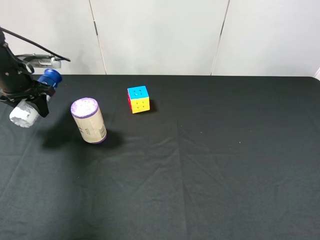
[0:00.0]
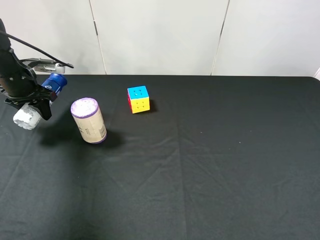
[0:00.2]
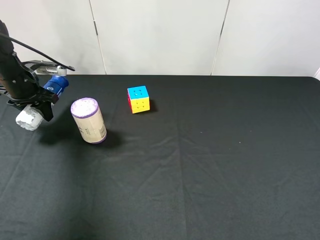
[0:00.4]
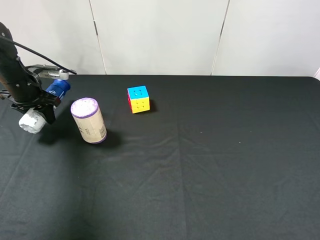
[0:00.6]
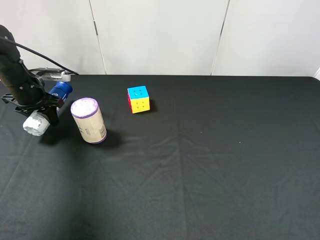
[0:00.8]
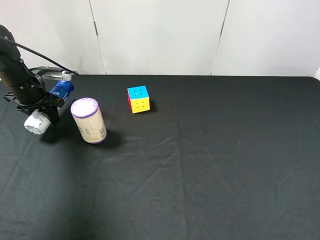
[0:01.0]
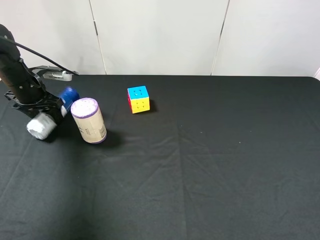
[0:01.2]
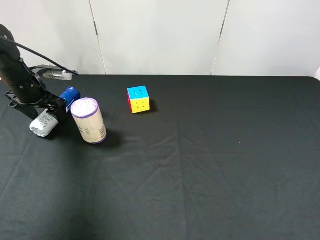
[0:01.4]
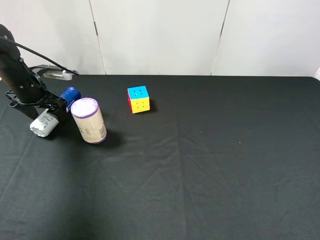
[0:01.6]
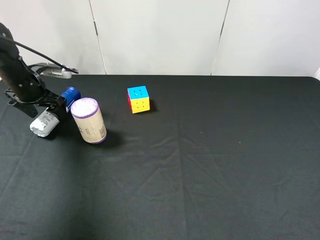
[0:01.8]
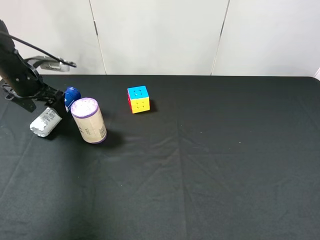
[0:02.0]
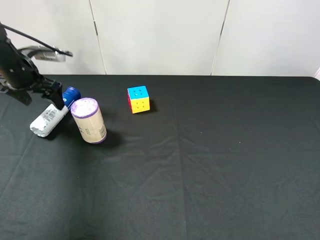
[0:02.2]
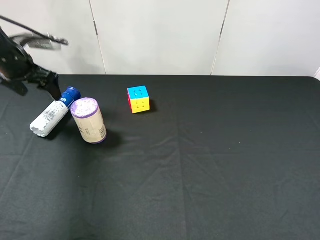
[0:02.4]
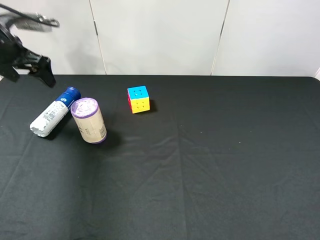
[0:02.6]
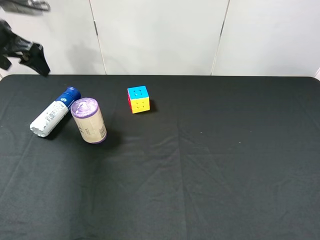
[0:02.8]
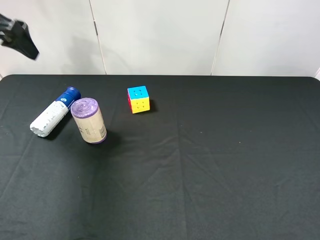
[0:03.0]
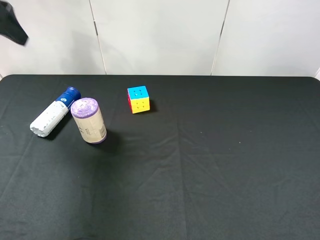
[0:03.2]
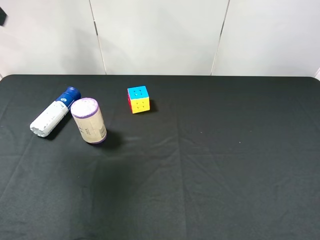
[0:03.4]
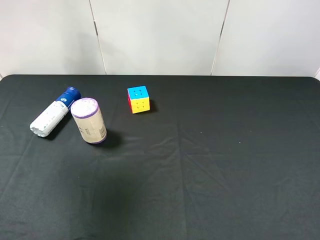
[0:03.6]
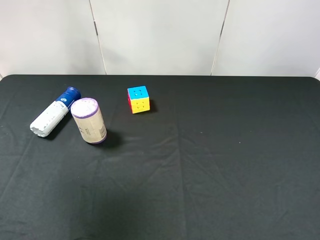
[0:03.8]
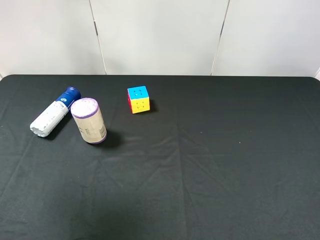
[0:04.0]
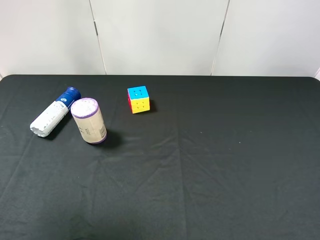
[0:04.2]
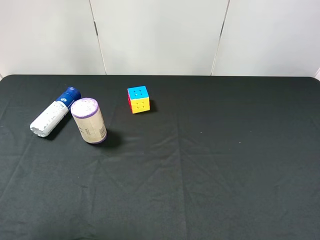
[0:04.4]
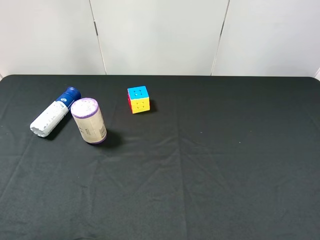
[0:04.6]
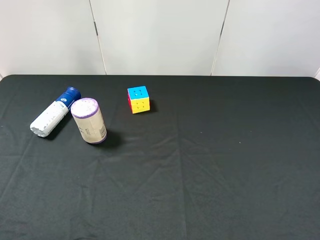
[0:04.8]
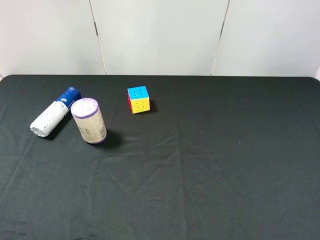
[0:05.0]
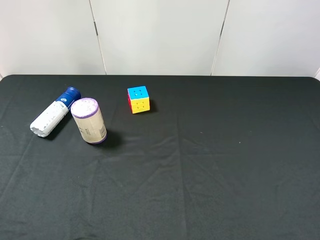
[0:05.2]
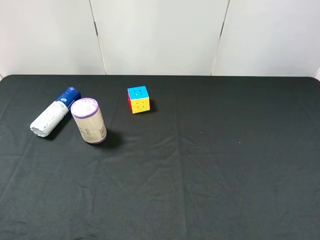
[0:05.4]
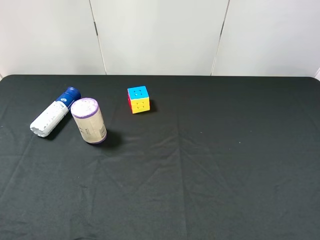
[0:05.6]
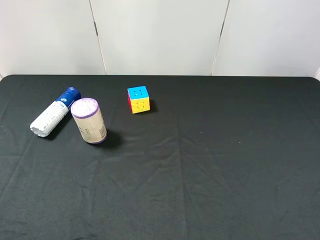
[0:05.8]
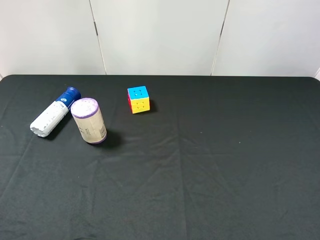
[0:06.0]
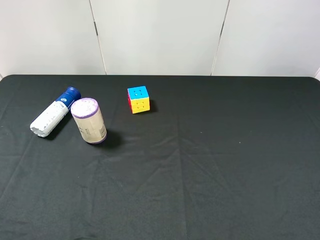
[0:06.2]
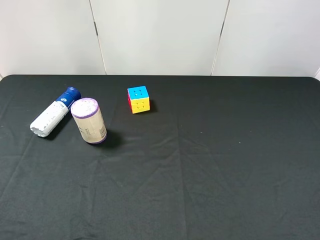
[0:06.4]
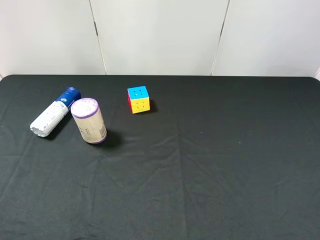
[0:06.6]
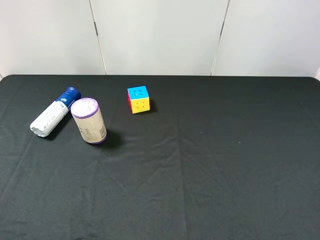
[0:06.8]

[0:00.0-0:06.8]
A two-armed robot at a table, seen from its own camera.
Task of the whole recording: use the right gripper to pick up the item and transfer it from the right gripper to the left gripper.
0:00.0 to 0:01.4: The left gripper opens its fingers.
0:01.4 to 0:02.8: The left gripper shifts some 15 cm upward.
0:02.8 to 0:04.0: The left gripper shifts some 25 cm backward and upward.
0:04.0 to 0:05.4: The left gripper heads backward and downward, covering about 20 cm.
0:05.4 to 0:06.8: The two grippers keep their place.

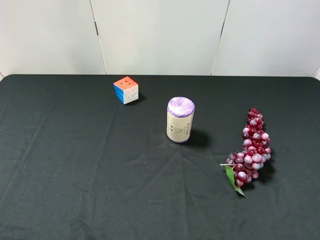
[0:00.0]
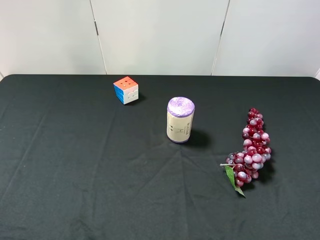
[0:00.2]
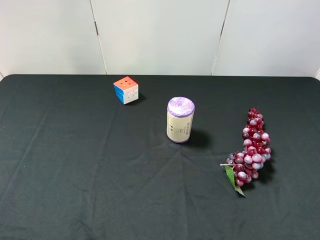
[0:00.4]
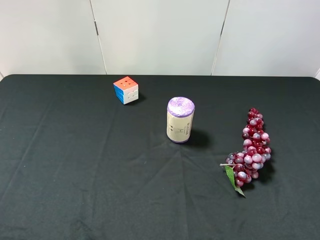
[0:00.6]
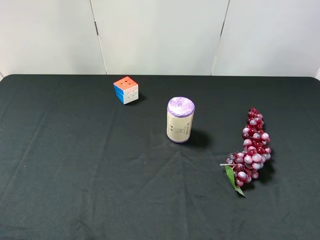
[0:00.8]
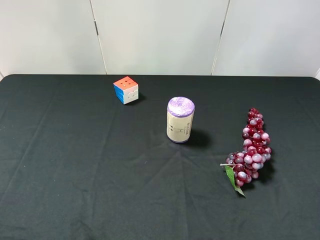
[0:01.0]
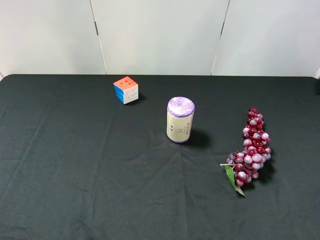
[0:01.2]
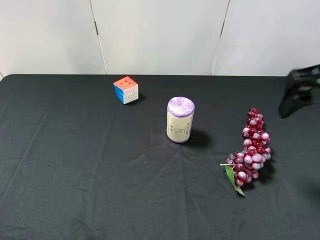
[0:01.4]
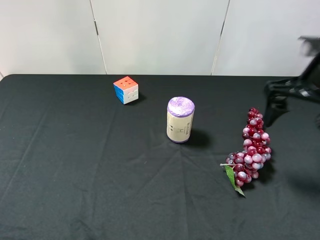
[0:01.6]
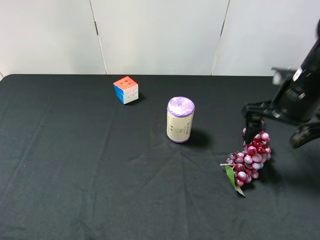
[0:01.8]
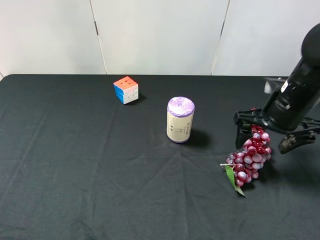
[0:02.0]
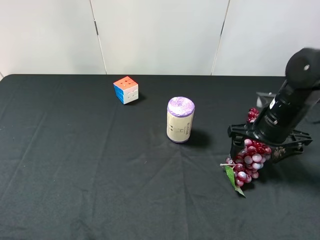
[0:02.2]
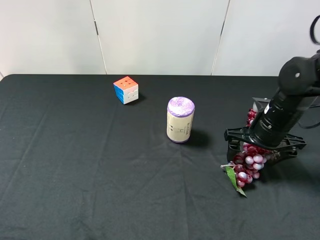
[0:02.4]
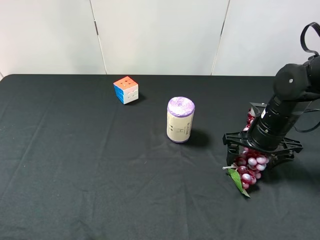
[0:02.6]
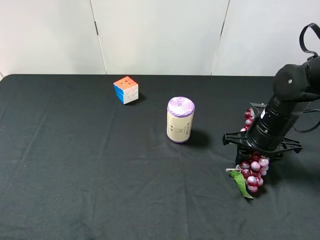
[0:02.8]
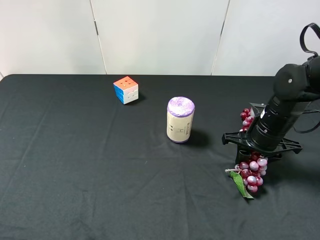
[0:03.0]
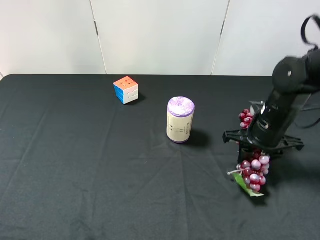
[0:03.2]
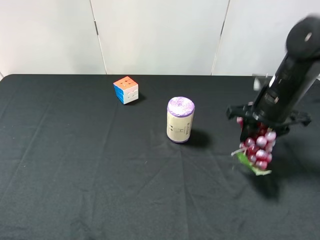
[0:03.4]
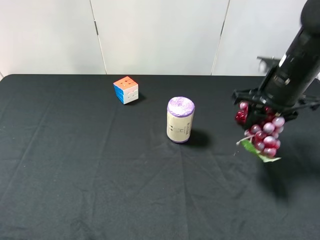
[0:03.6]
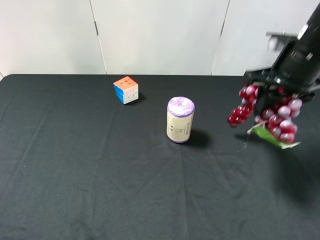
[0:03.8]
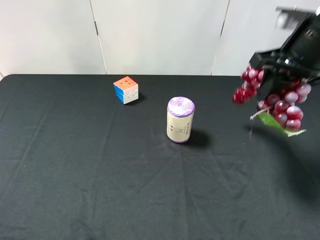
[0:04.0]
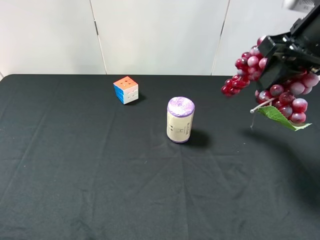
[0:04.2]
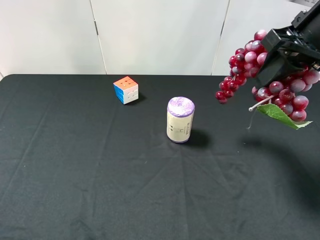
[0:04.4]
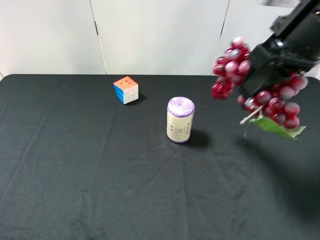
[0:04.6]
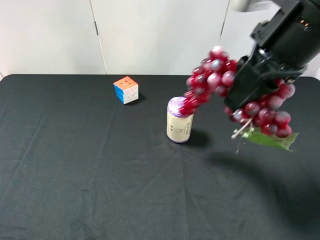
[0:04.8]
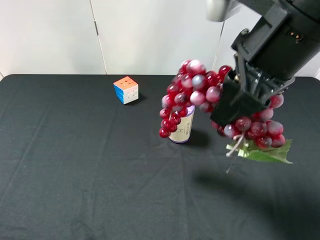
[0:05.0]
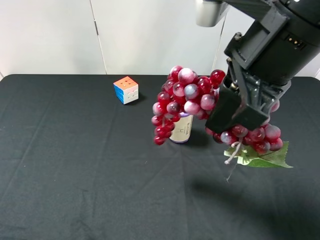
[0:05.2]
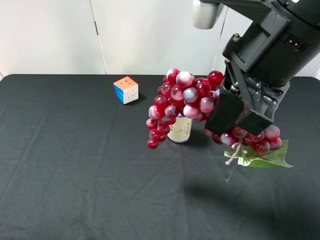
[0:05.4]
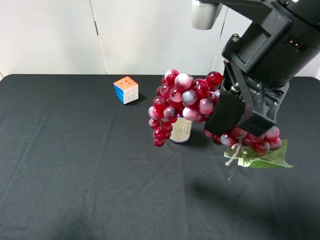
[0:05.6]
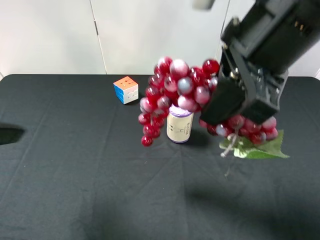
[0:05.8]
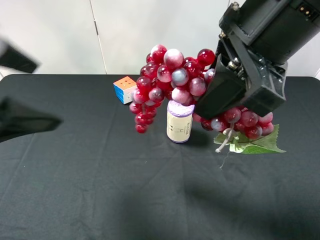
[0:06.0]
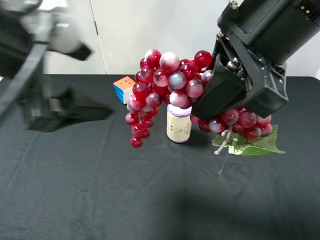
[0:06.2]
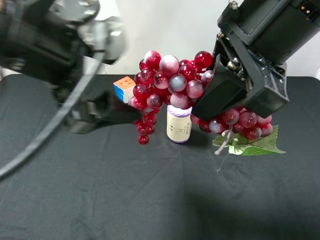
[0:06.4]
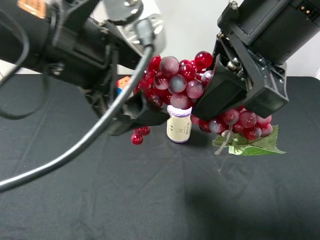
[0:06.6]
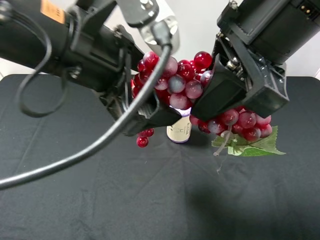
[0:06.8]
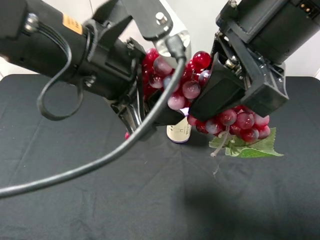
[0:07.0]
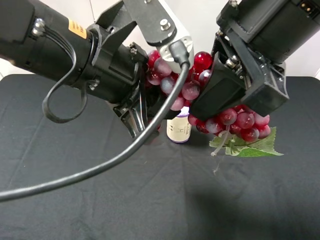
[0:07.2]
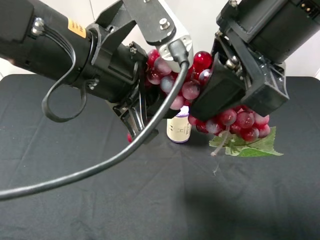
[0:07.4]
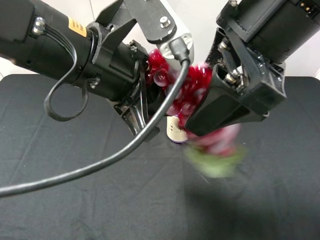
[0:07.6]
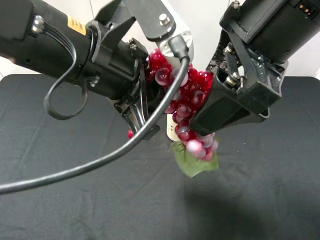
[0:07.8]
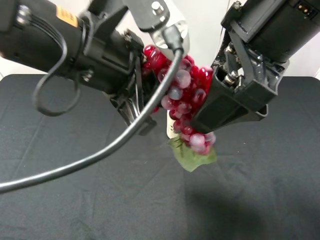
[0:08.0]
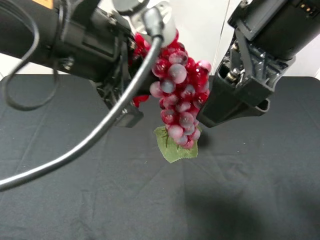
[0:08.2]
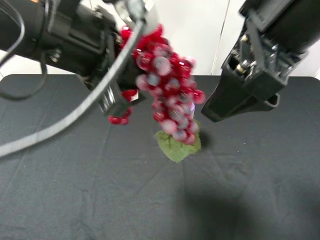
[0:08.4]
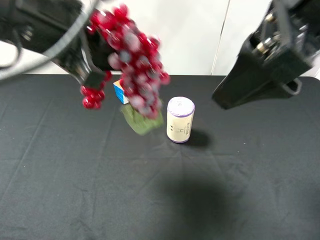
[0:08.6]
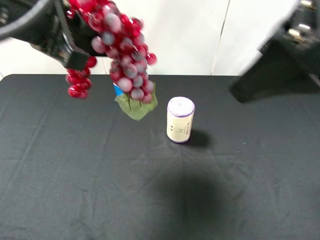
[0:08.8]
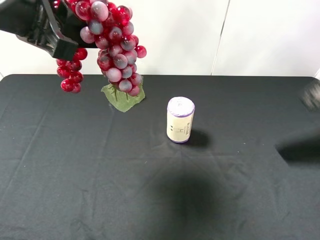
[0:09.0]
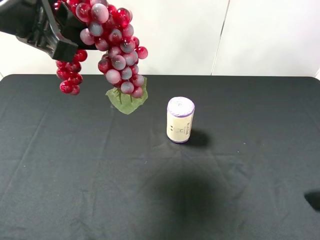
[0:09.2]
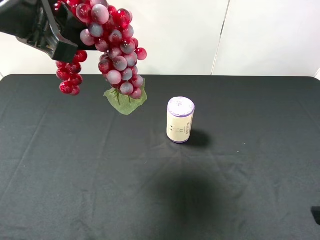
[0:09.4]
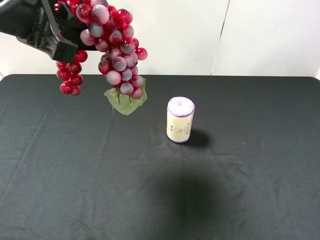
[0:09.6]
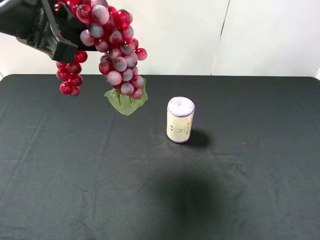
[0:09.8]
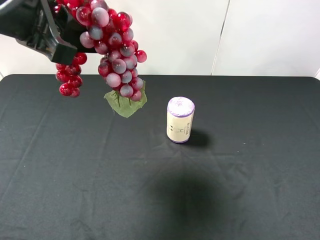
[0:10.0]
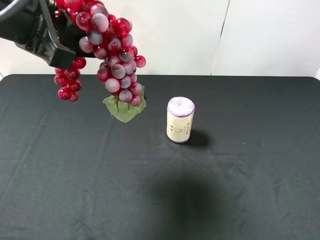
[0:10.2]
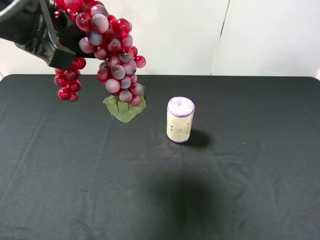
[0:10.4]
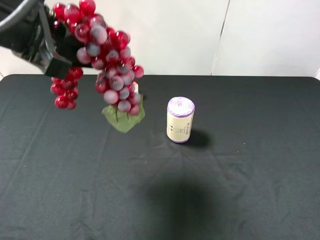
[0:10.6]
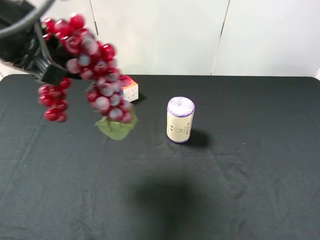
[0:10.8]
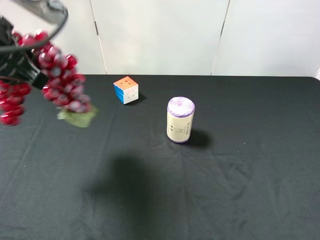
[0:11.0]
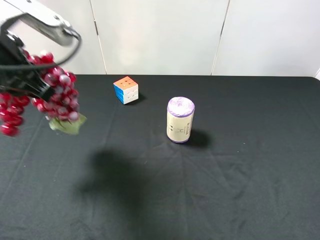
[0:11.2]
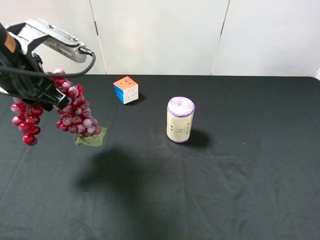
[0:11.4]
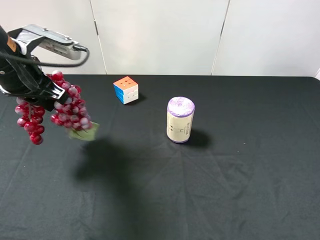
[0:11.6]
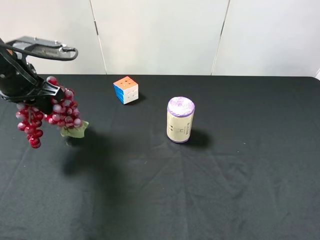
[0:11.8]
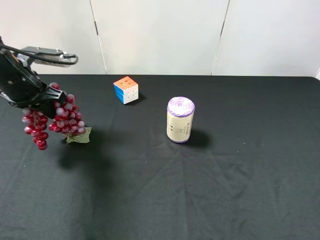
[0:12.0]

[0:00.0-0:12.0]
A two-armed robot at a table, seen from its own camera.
Task of the whole recording: use the right gripper to pick up the item and transfer it from the right gripper to the left gripper.
Step, 0:00.0 to 0:03.0: Use the right gripper to grab the grape on the right side of the table.
Step, 0:03.2 to 0:08.4: Pass the grape to the left gripper.
0:00.0 to 0:01.6: The right gripper moves forward, about 25 cm.
0:01.6 to 0:03.0: The right gripper shifts about 15 cm downward, and closes.
0:03.0 to 0:04.4: The right gripper is displaced upward by roughly 20 cm.
0:04.4 to 0:06.0: The left gripper heads forward and to the right, covering roughly 20 cm. Meanwhile the right gripper shifts about 15 cm to the left and backward.
0:06.0 to 0:07.6: The left gripper is displaced to the right by approximately 10 cm, and closes, while the right gripper opens up.
0:07.6 to 0:09.0: The left gripper is displaced to the left and upward by some 10 cm. Meanwhile the right gripper heads to the right and backward, covering roughly 15 cm.
0:09.0 to 0:10.4: The right gripper is displaced to the right, backward and downward by roughly 15 cm.
0:10.4 to 0:12.0: The left gripper goes roughly 20 cm downward, forward and to the left.

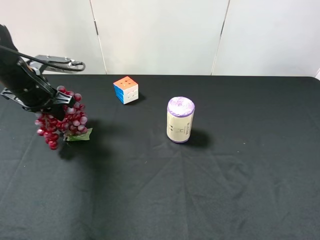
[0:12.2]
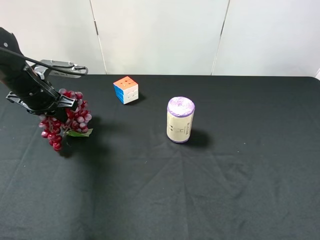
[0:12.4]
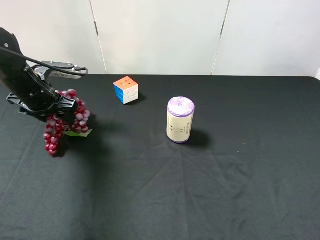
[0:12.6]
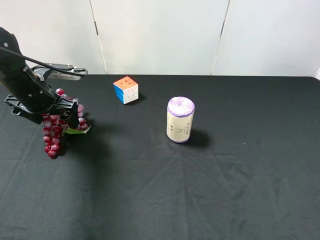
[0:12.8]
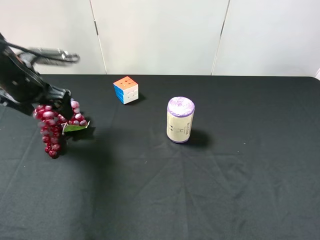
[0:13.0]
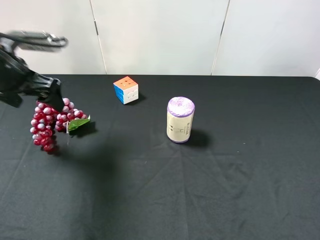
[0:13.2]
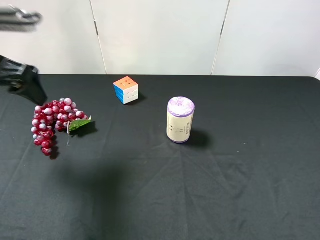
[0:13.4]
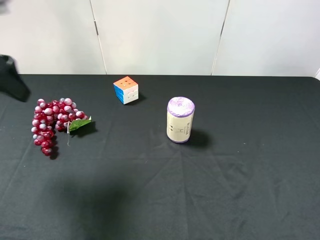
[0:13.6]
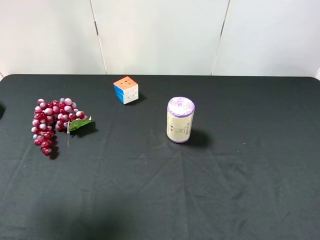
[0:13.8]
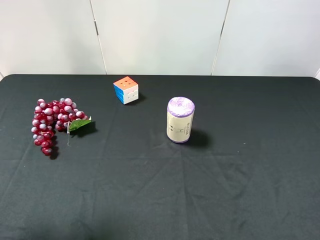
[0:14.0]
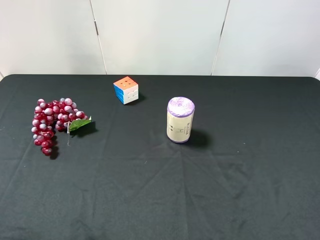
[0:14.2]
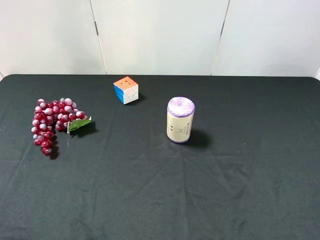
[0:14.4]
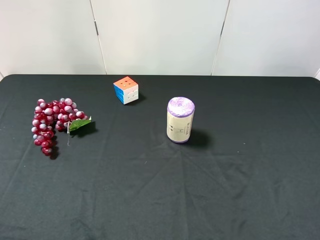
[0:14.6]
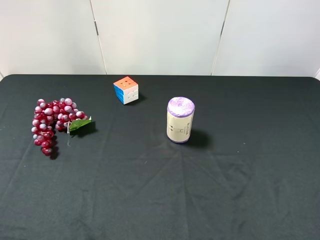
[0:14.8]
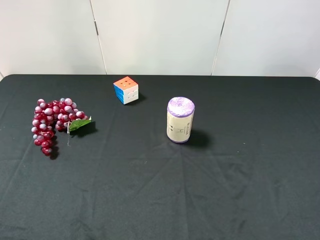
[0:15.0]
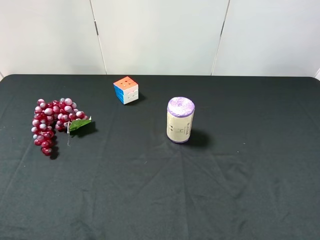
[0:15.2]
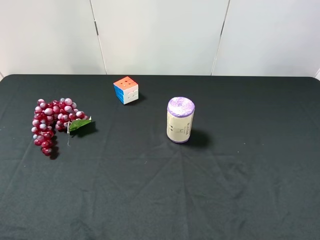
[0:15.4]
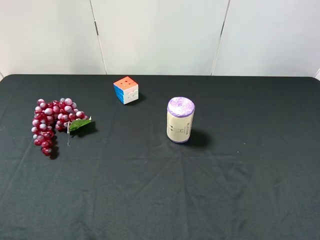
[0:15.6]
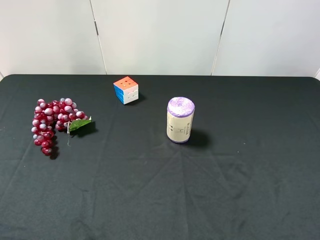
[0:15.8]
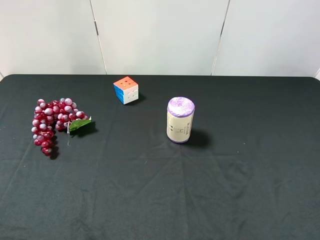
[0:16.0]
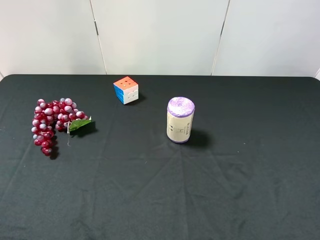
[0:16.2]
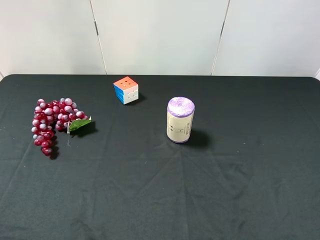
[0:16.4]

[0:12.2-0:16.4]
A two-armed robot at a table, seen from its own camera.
Task of the whole recording: use the right gripper to pick up the item and transfer it from the right gripper to the left gripper.
0:12.2 to 0:13.6: The left gripper goes about 20 cm upward and backward, and opens.
0:13.6 to 0:15.0: The left gripper shifts about 20 cm backward.
